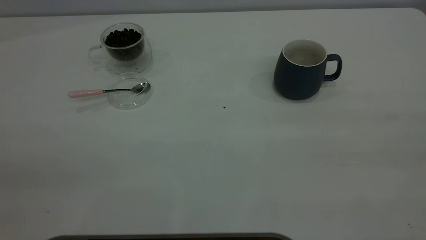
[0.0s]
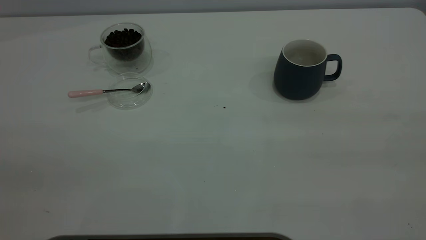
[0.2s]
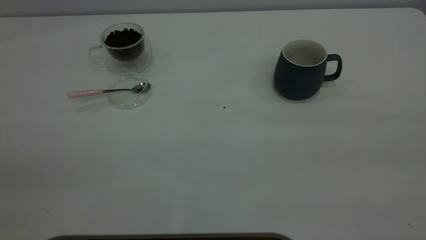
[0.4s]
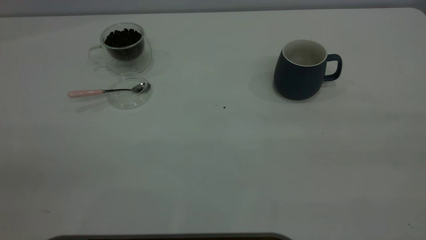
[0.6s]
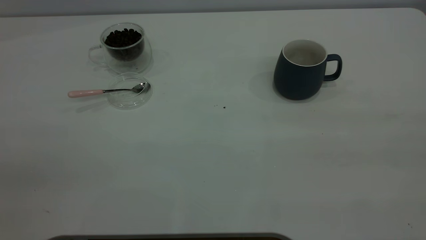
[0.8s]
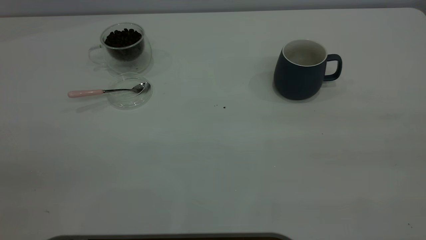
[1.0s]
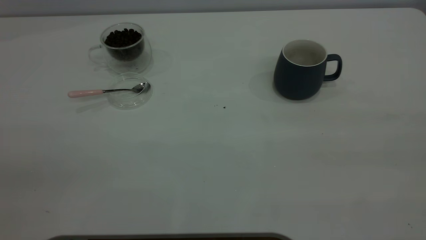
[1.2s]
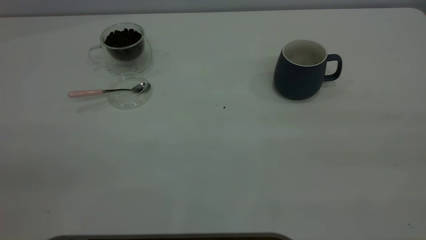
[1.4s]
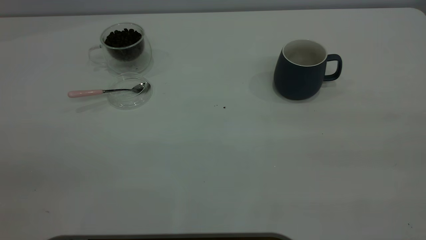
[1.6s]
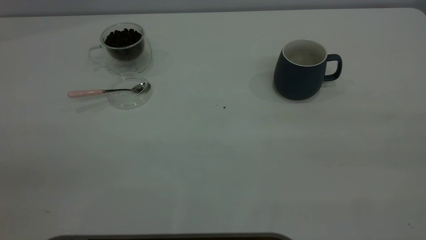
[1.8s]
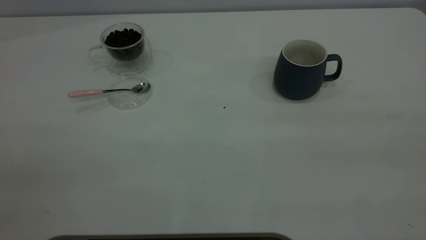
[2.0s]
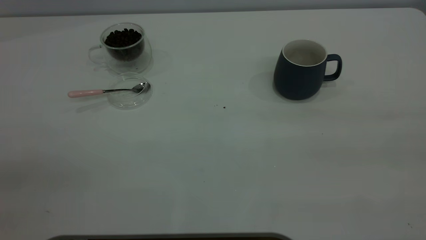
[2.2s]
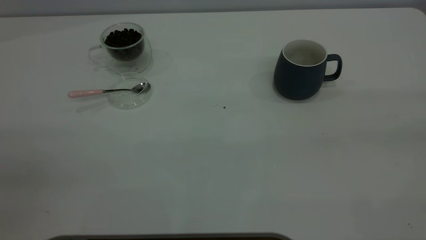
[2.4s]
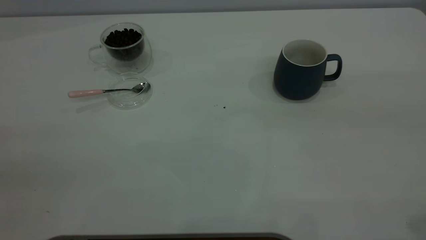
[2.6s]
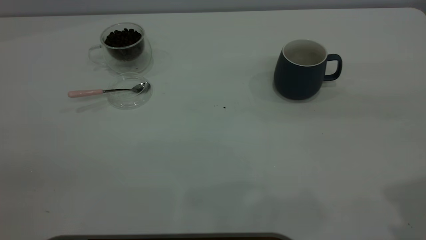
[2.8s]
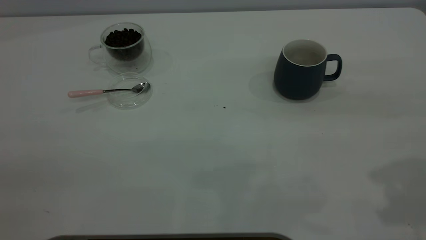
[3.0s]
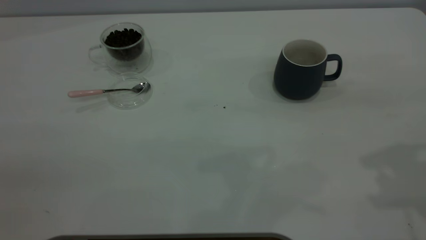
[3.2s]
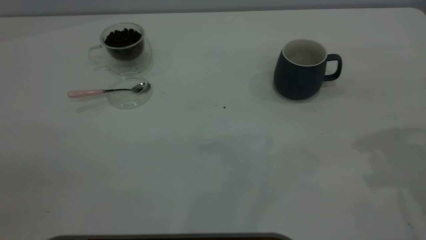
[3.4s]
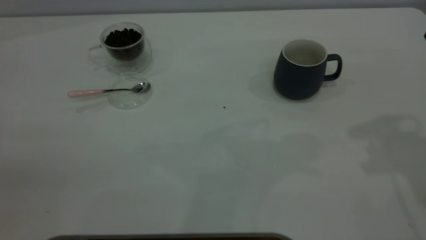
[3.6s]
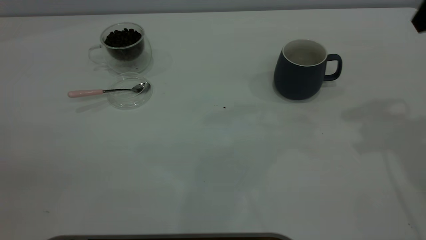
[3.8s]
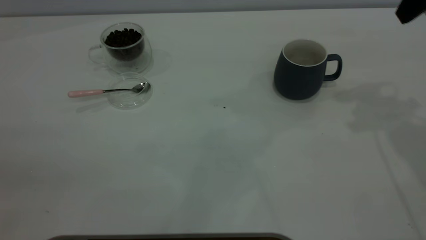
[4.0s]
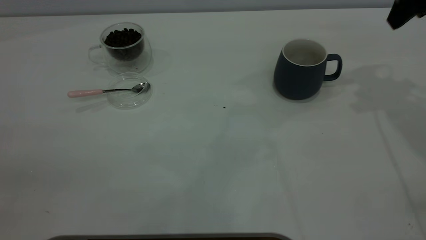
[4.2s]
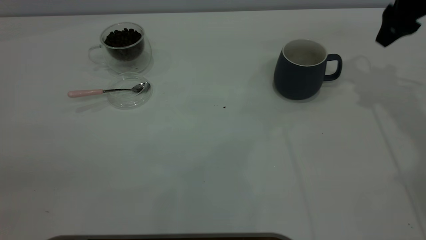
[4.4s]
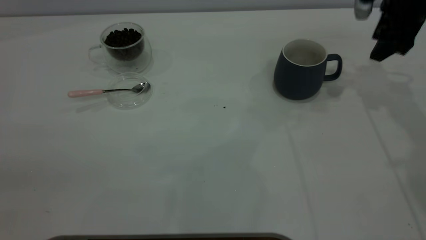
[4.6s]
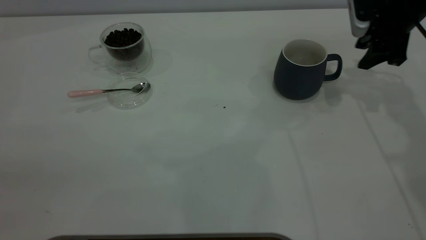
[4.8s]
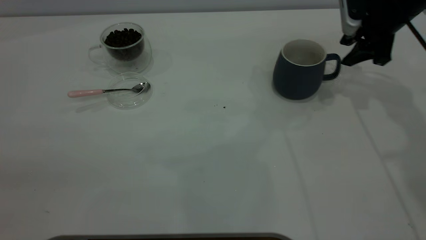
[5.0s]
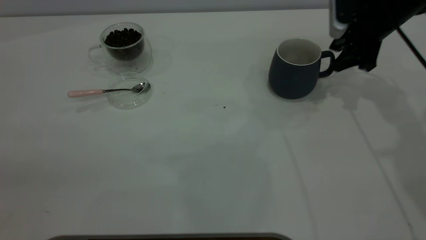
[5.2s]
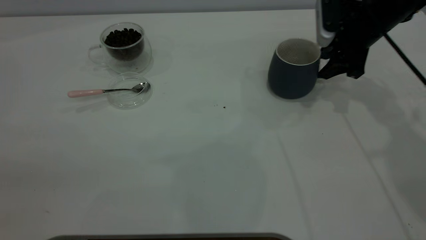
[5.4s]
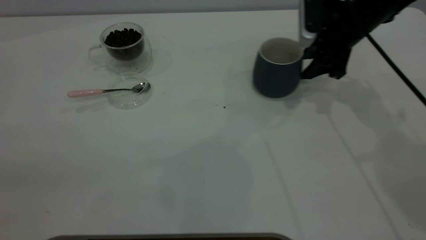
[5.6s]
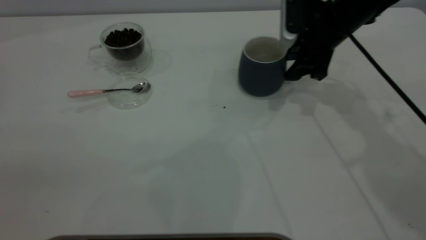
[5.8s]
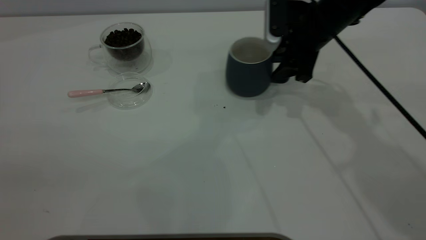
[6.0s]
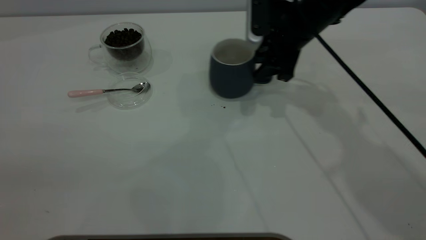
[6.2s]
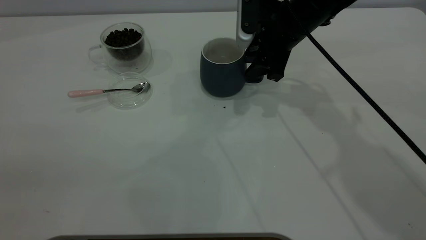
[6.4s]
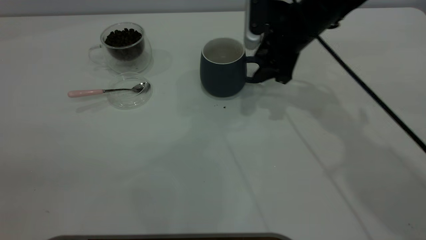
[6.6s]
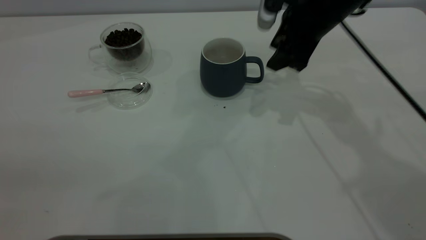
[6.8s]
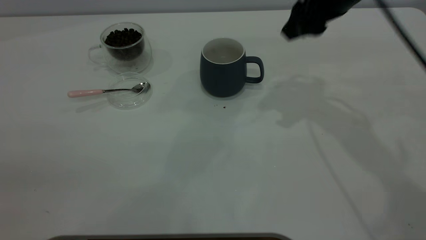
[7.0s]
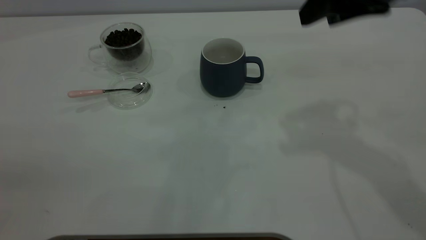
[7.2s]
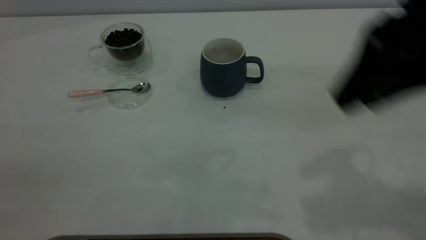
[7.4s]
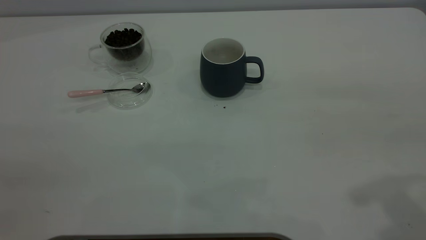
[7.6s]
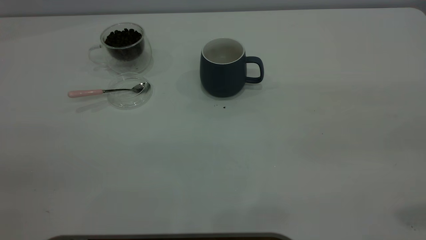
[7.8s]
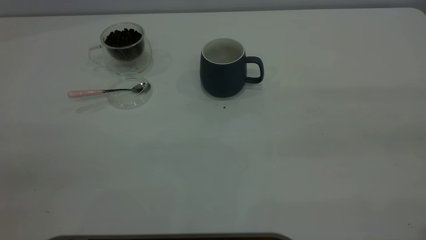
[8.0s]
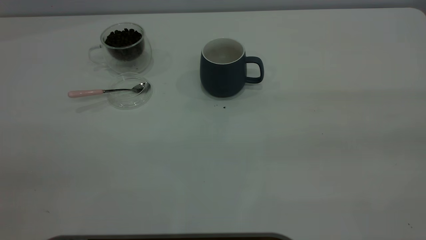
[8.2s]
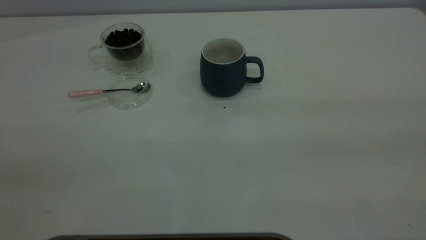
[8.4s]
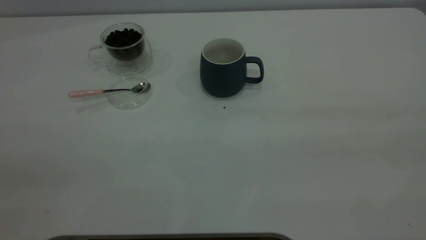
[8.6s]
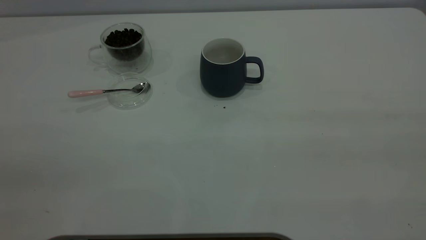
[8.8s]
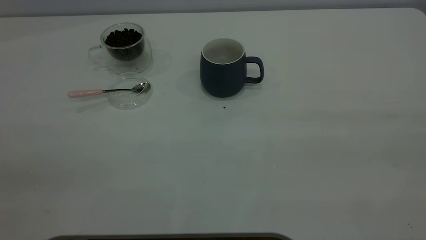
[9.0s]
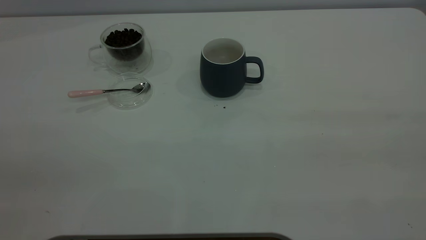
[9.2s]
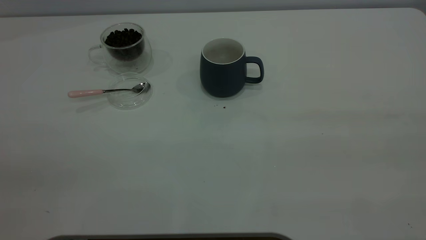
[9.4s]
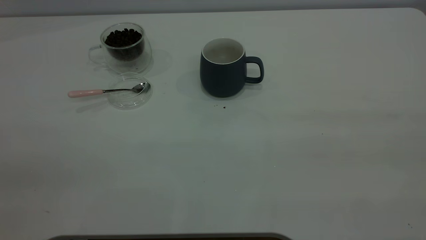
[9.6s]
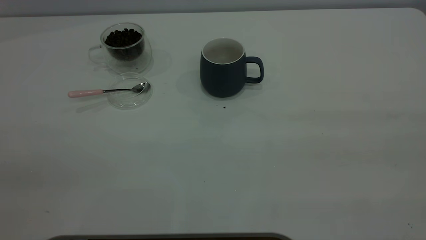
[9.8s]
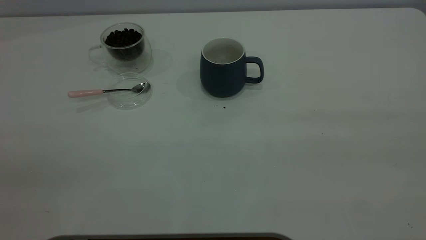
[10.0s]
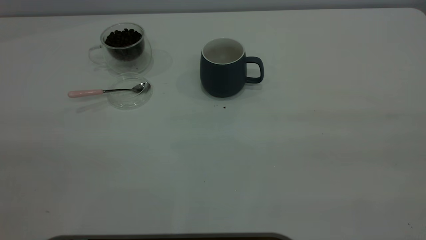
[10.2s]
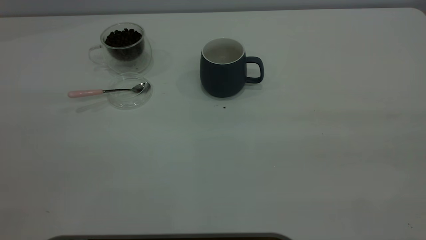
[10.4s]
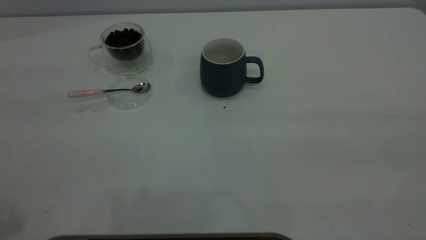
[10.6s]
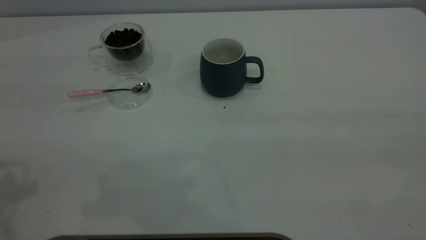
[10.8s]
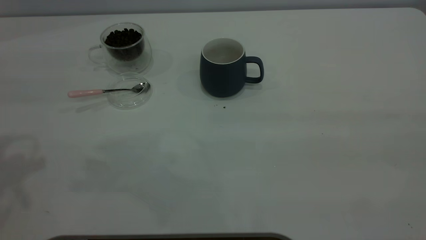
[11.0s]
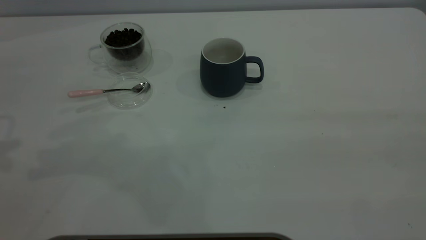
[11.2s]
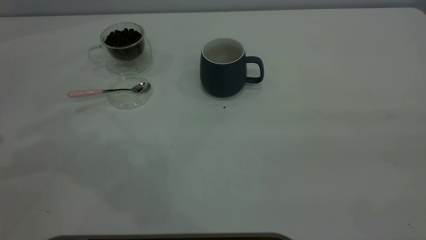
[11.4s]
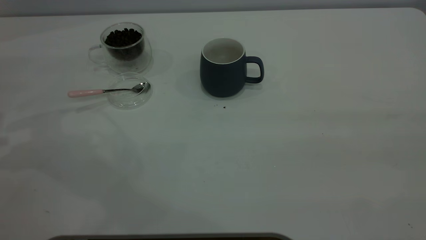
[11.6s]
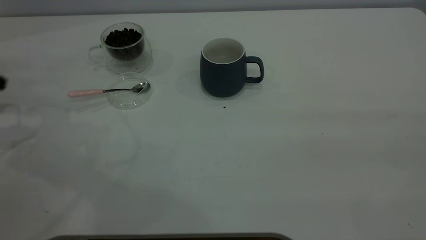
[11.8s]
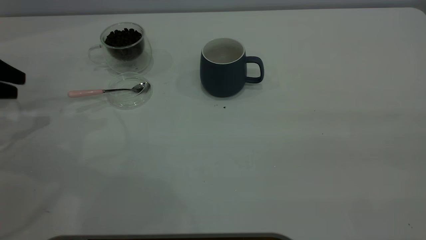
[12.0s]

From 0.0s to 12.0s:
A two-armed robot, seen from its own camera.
Task of the whole recording: the right gripper place the grey cup in the center of the table, the left gripper take the pink spoon from the cup lid and scoop out the coffee beans from the coffee cup and put them into the grey cup, the left gripper put the spoon back into the cup lid.
Step, from 0.0s to 7.0s: Move the cup to the center of view.
From 0.0s to 1.6s: Both grippers stay about where they are.
From 3.0s to 4.4s: The right gripper heads forward and downward, covering roughly 25 cm.
From 4.4s to 6.0s: The right gripper shifts some 15 cm to the left and downward.
From 6.0s to 7.6s: The right gripper shifts roughly 35 cm backward and upward.
From 10.4s to 12.0s: The left gripper heads forward, downward and to the left, covering some 35 cm.

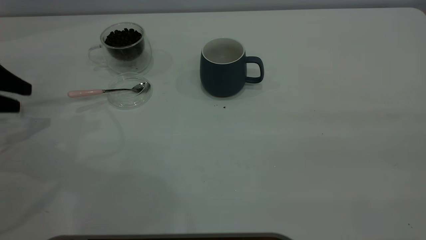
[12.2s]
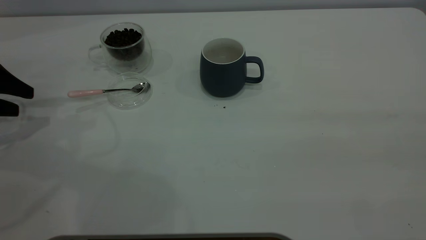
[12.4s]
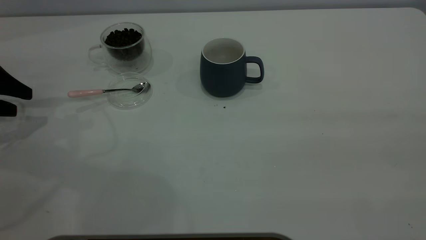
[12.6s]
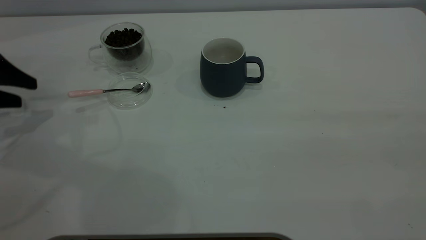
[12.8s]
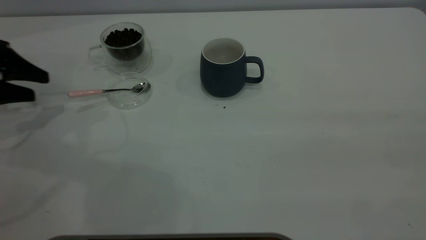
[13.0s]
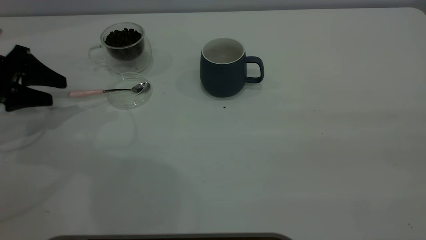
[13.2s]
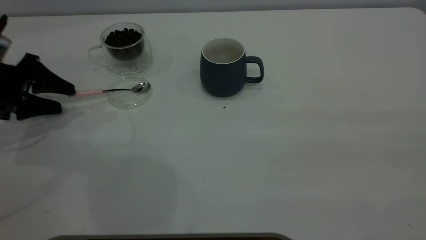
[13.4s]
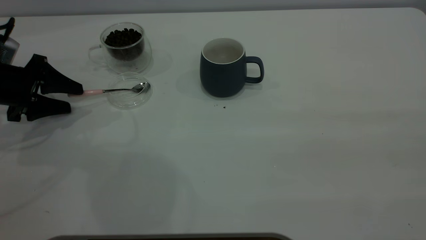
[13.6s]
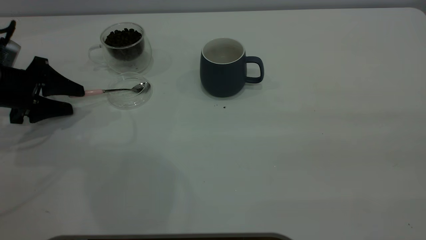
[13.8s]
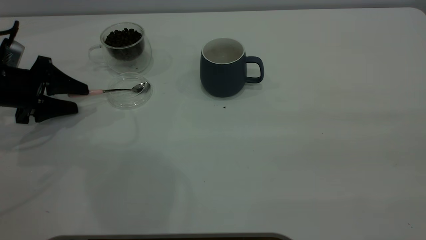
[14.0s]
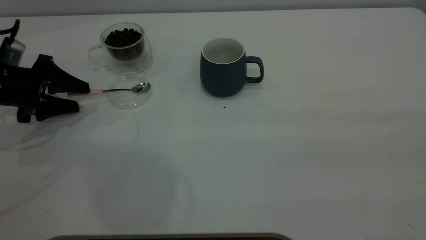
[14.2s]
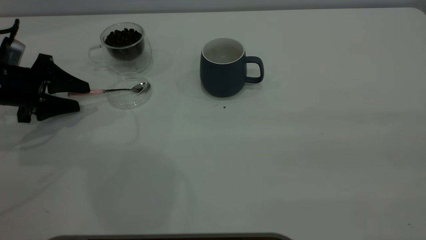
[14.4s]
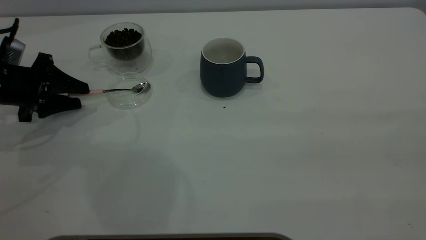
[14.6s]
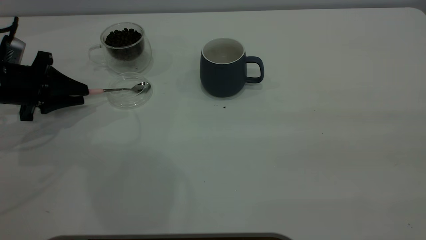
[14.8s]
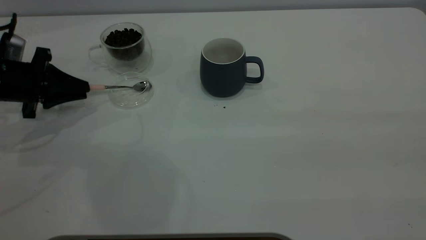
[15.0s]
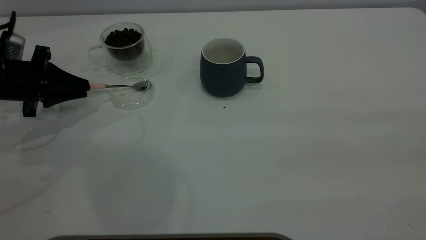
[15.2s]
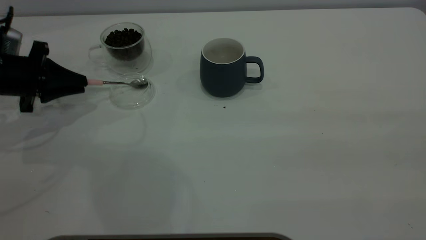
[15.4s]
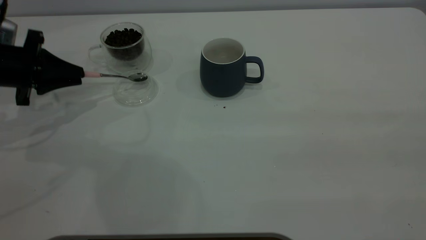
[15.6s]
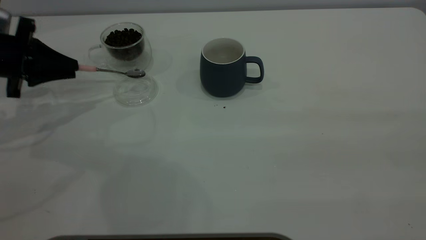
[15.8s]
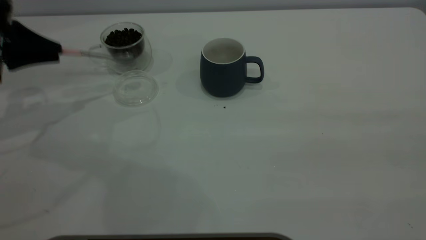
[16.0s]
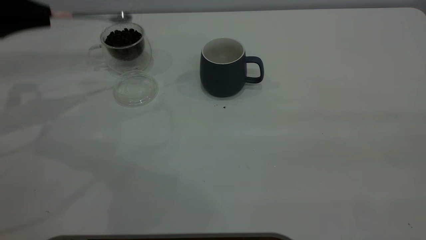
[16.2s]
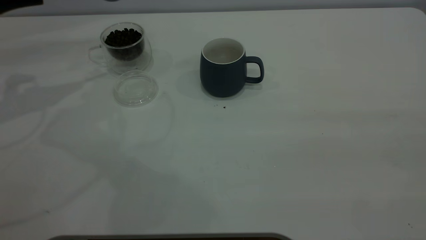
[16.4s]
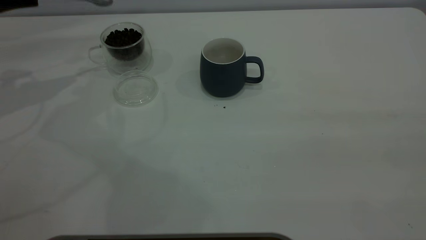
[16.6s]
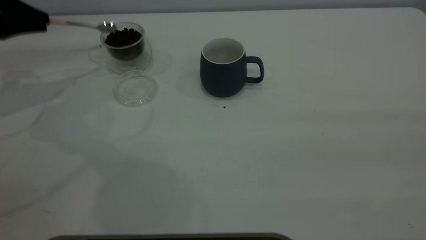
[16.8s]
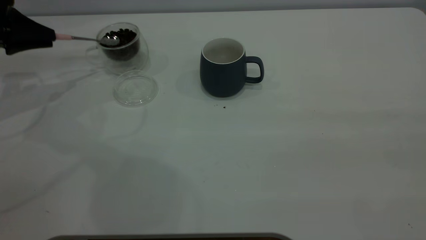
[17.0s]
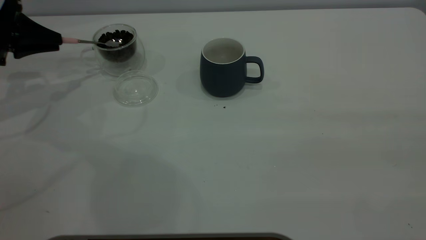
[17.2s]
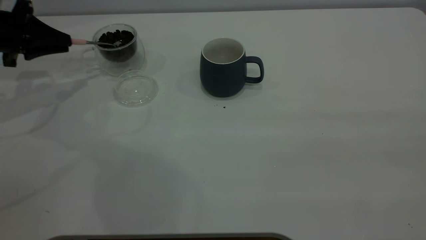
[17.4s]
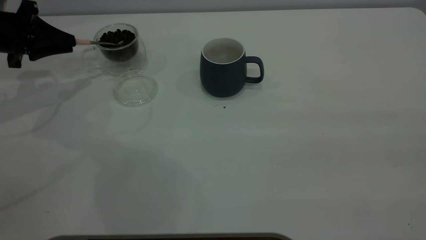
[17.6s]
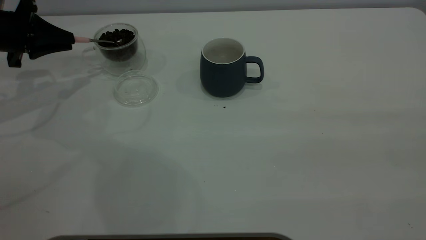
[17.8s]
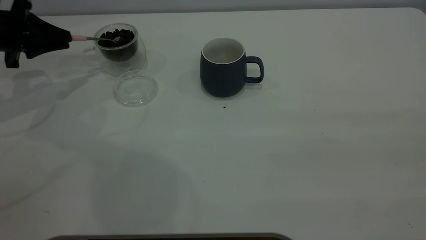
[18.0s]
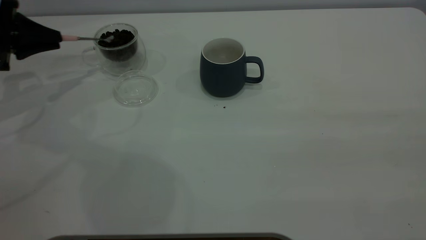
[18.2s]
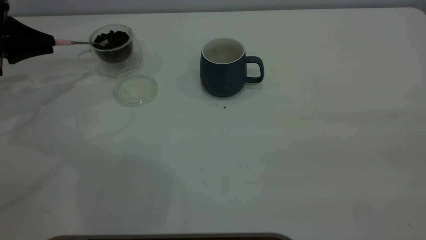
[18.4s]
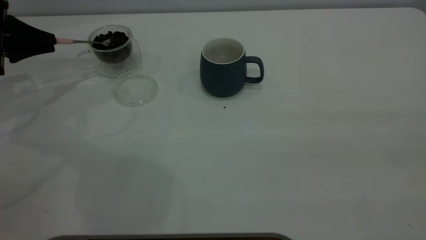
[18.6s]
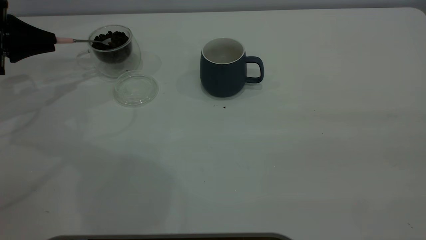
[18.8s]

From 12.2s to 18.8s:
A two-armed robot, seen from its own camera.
Task of the whole recording: the right gripper place the grey cup in the center of the table, the left gripper take the pink spoon from the cup lid and scoop out the coffee beans from the coffee cup and put them into the grey cup, the left gripper put the spoon back into the cup lid.
Step, from 12.2s to 16.0s: Pick up the spoon.
From 12.2s to 13.8s: The left gripper shifts some 10 cm to the right and downward.
From 13.8s to 15.4s: The left gripper closes up.
From 15.4s to 17.2s: The left gripper is displaced forward and upward by roughly 5 cm.
From 17.2s to 18.8s: The grippers move only a little.
